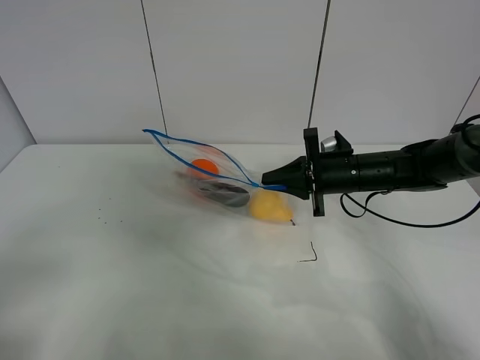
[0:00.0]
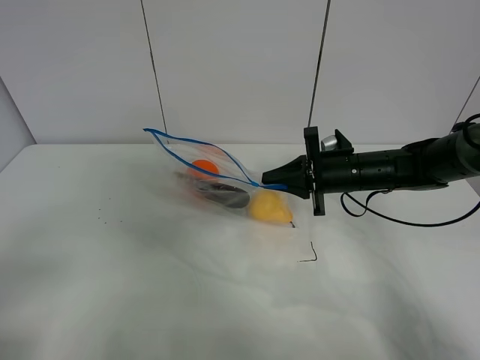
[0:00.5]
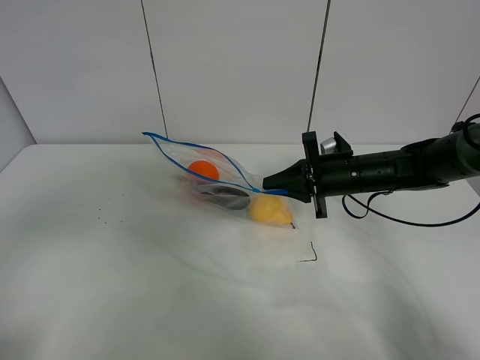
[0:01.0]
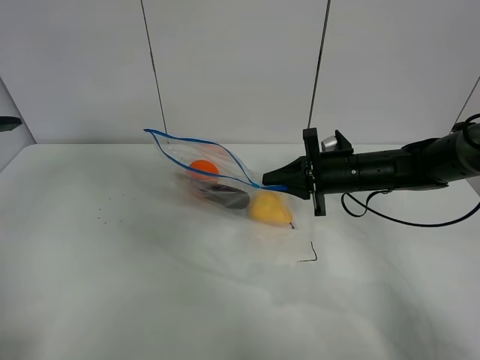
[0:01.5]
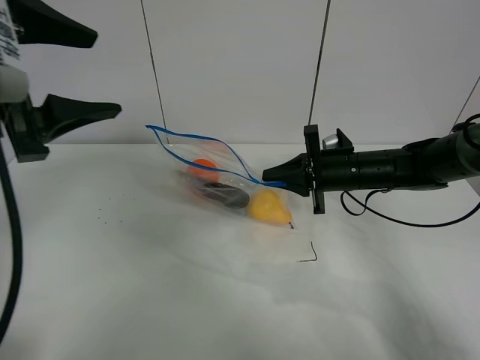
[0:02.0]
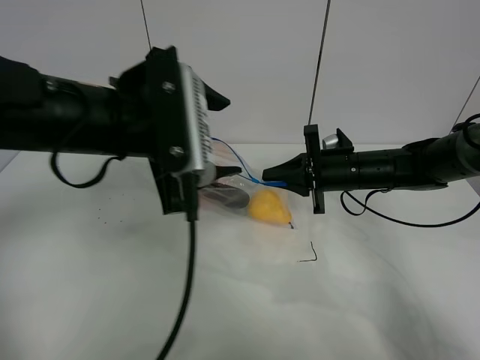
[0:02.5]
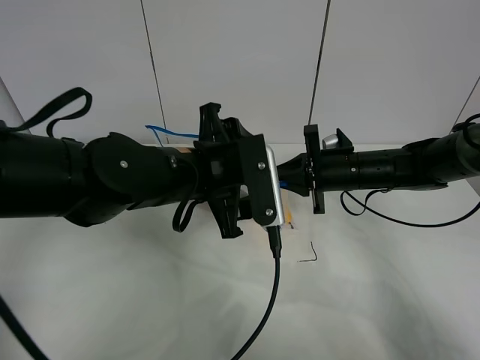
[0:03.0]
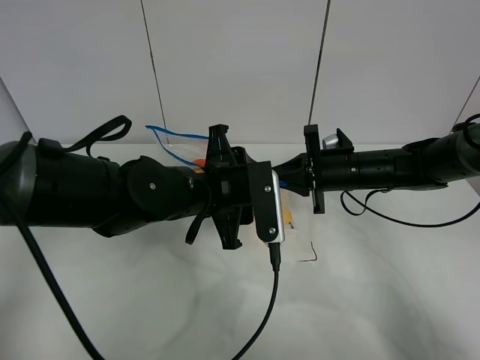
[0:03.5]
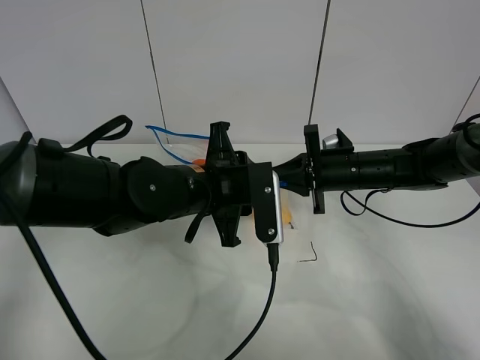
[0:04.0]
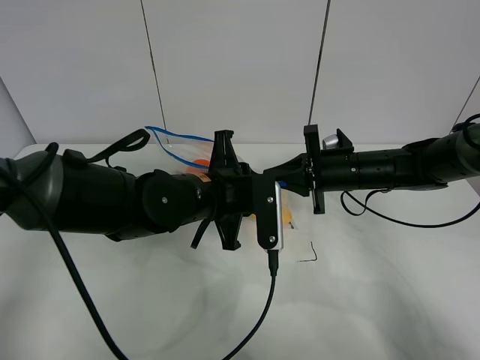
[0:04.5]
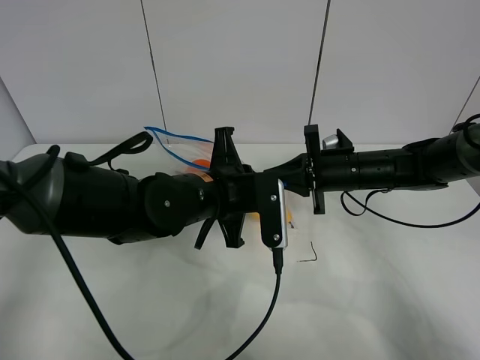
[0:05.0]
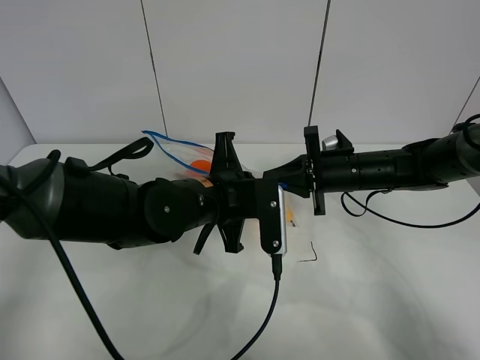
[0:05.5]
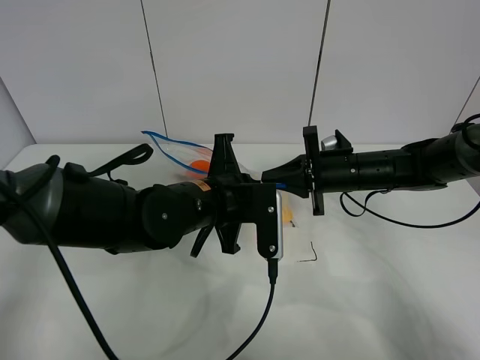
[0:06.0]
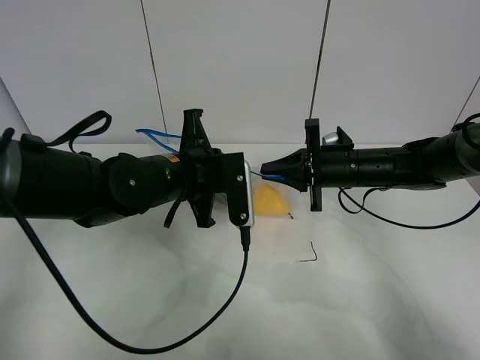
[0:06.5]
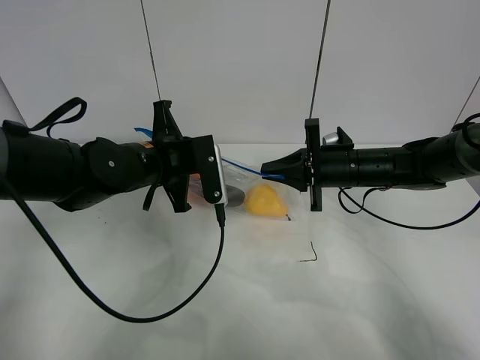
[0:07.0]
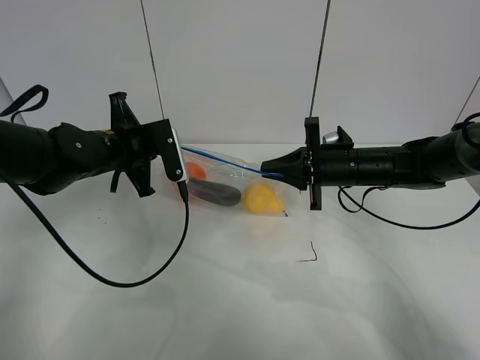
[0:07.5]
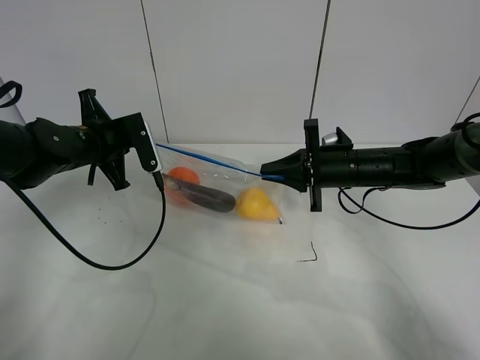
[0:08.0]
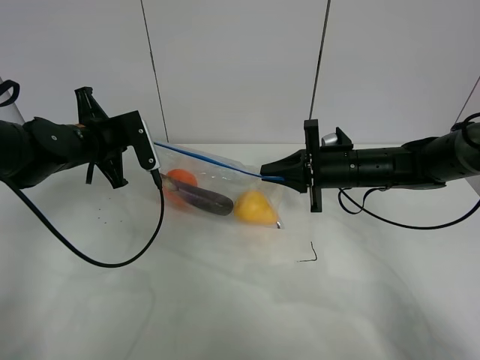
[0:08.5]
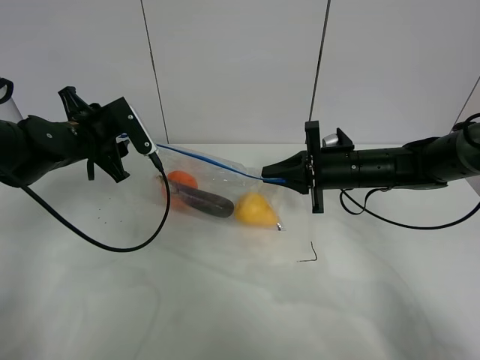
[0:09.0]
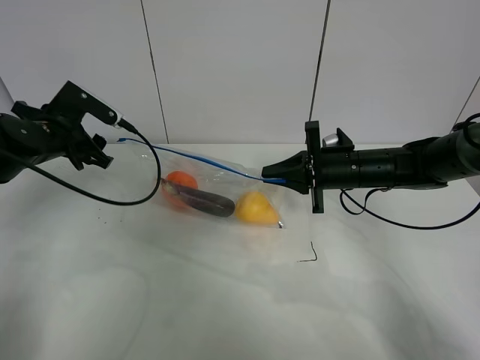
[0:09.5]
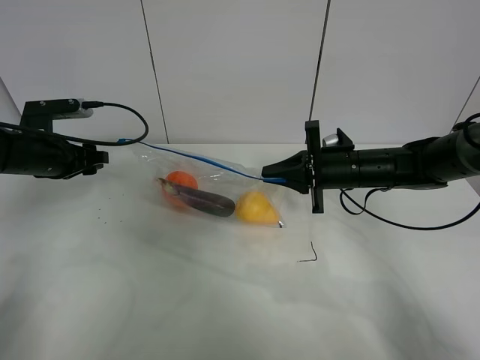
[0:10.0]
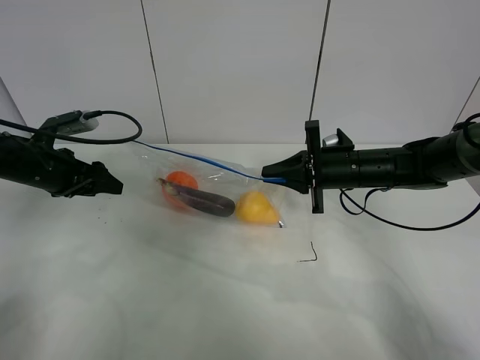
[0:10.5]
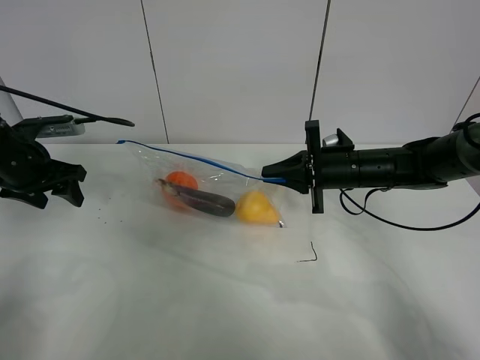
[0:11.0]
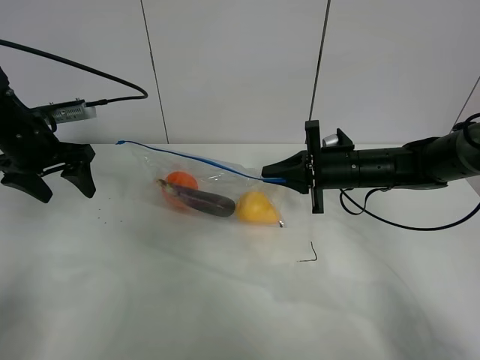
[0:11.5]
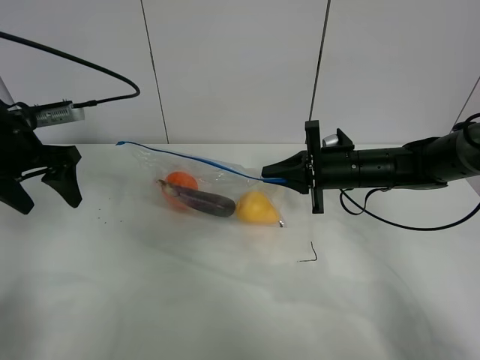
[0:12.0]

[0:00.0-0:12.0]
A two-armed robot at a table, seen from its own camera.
Step, 0:00.5 to 0:09.0: Pull the fruit bag with left gripper.
0:00.0 to 0:02.0: The left gripper travels forward, upward and to the right by about 25 cm.
0:02.0 to 0:04.0: The left gripper shifts approximately 25 cm to the right and downward, and closes up.
0:04.0 to 0:06.0: The left gripper closes up.
0:06.0 to 0:08.0: The left gripper is displaced to the left and forward by approximately 20 cm.
0:08.0 to 0:10.0: The left gripper moves to the left, about 10 cm, and opens up.
0:10.0 to 0:12.0: The left gripper is displaced upward by roughly 5 cm.

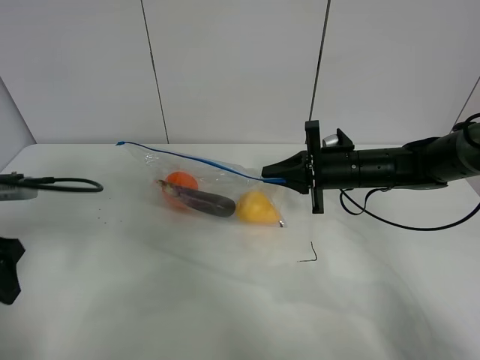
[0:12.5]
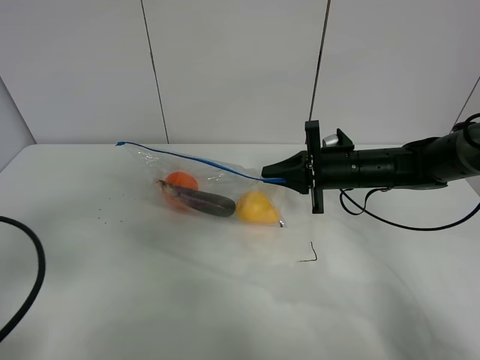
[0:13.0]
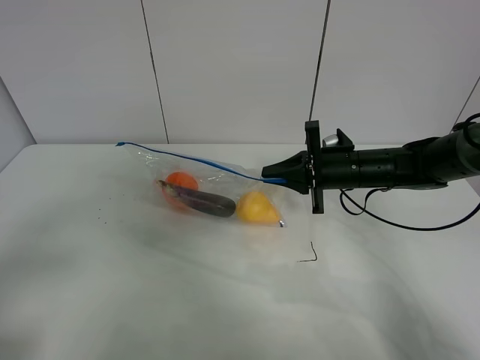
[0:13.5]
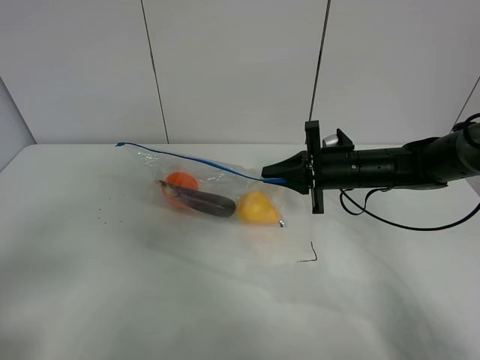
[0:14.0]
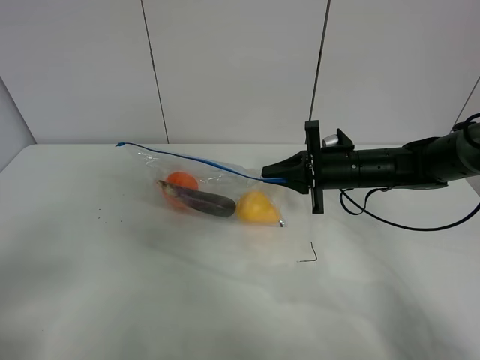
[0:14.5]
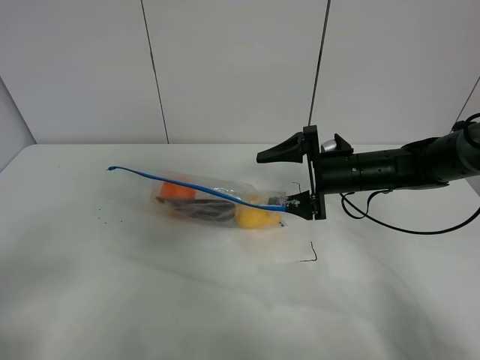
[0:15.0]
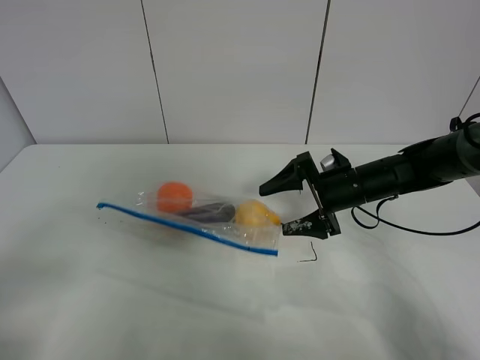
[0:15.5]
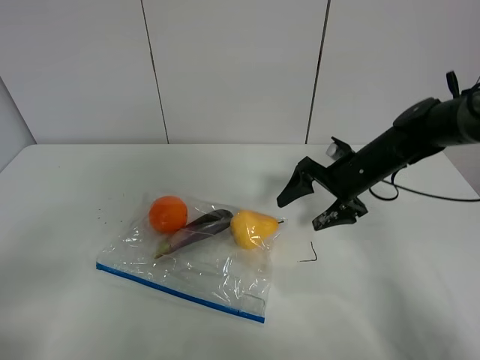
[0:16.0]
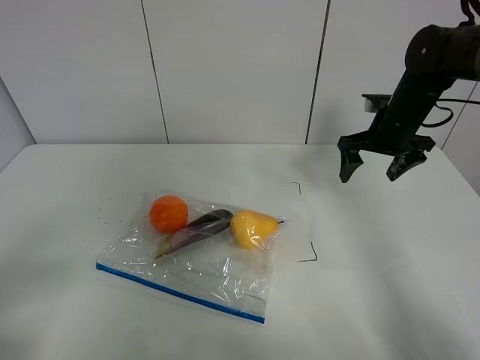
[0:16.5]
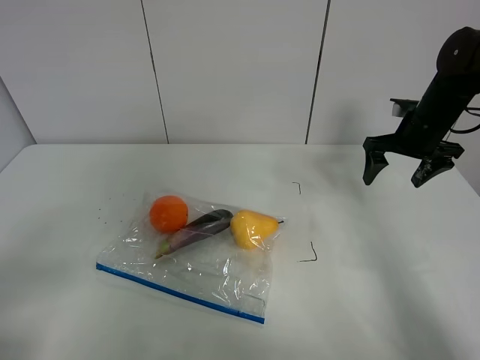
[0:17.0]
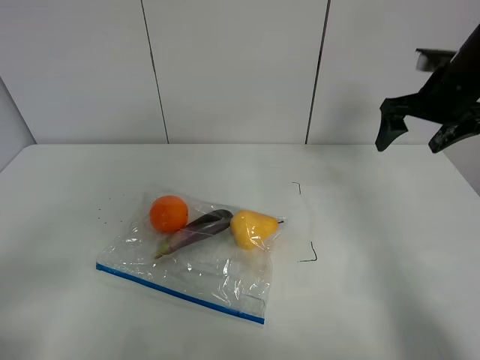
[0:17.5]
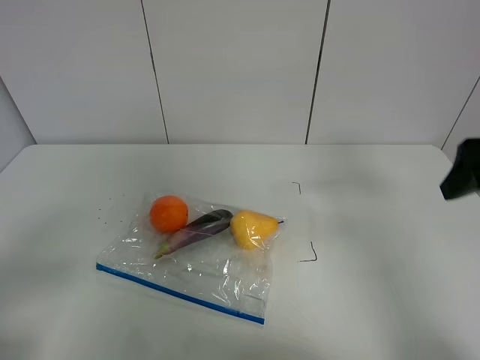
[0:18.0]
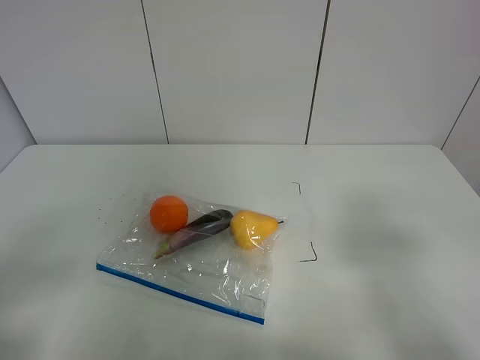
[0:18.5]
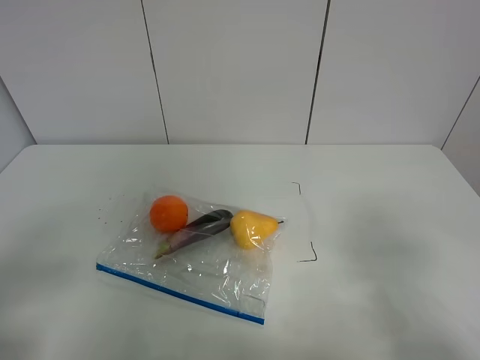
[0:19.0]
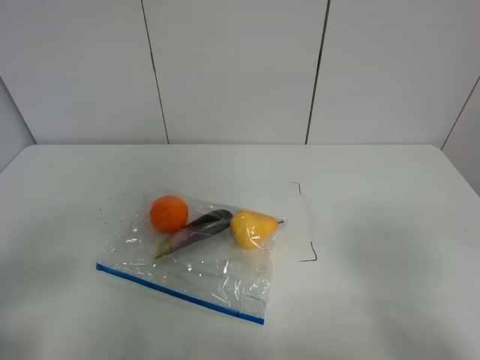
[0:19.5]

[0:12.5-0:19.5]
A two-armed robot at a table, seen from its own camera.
0:12.5 to 0:14.5: The left gripper goes roughly 20 cm backward.
0:14.5 to 0:16.0: The right gripper opens up.
0:16.0 to 0:17.5: The right gripper heads upward and to the right, covering some 15 cm.
0:17.5 to 0:19.5: The right gripper travels backward by some 35 cm.
